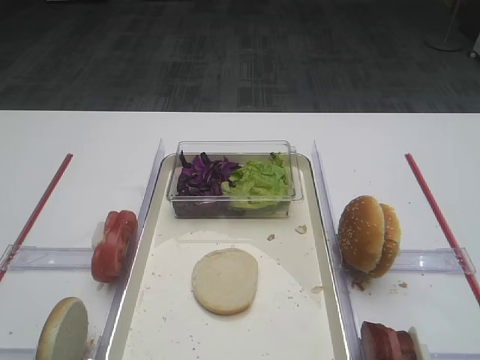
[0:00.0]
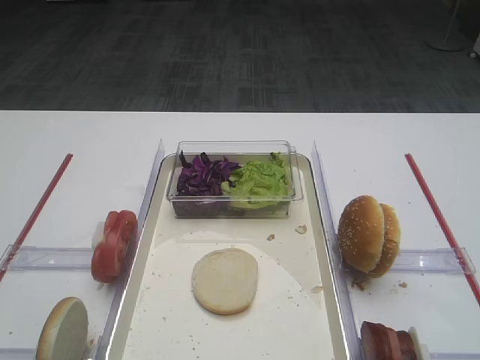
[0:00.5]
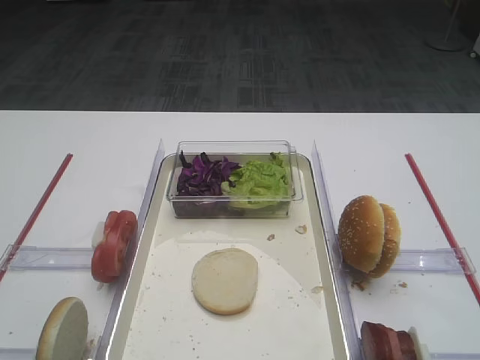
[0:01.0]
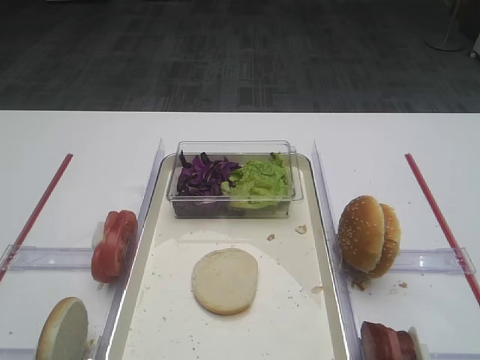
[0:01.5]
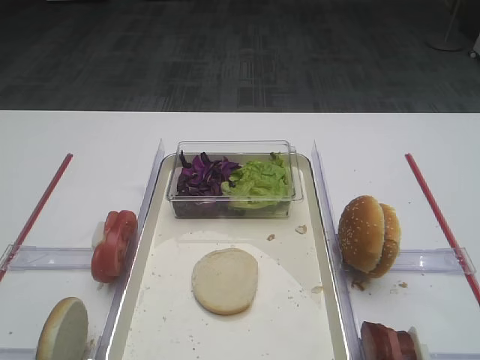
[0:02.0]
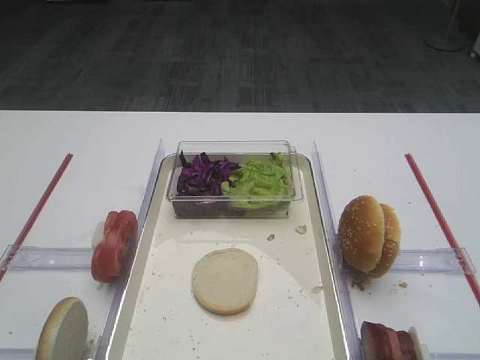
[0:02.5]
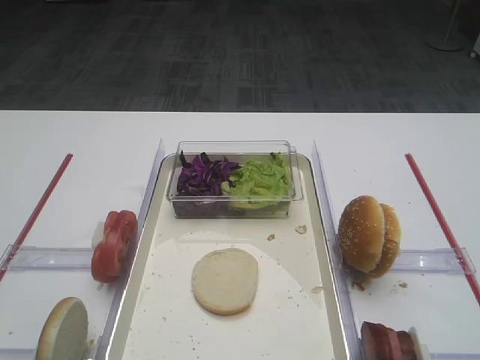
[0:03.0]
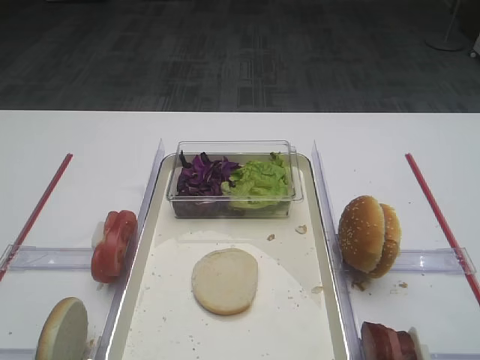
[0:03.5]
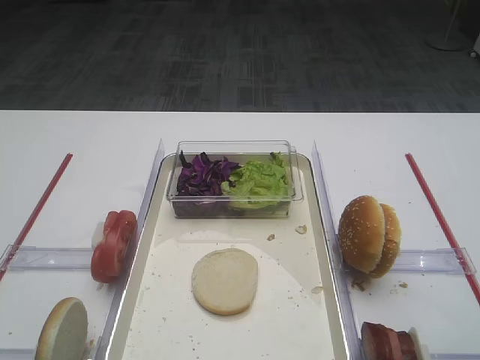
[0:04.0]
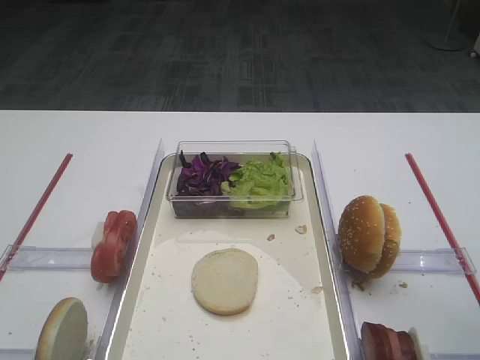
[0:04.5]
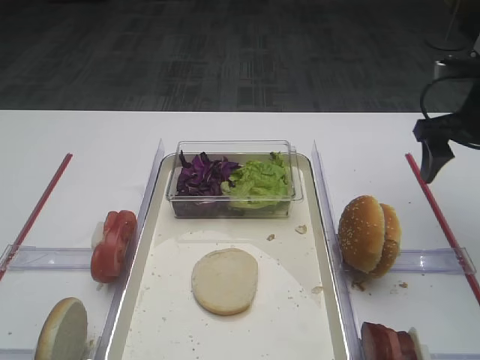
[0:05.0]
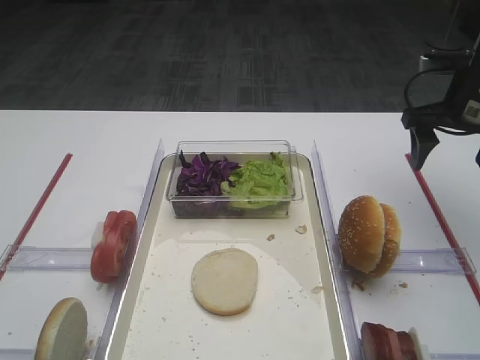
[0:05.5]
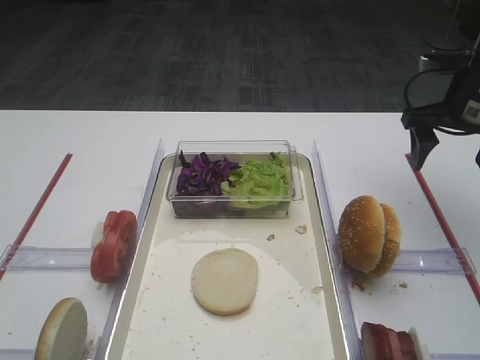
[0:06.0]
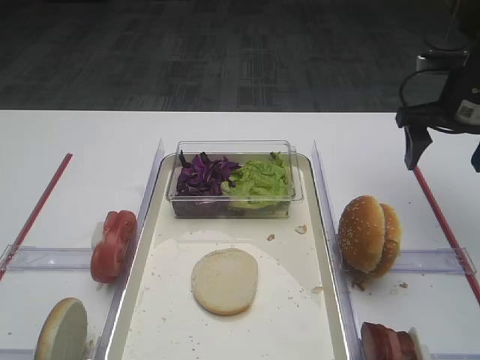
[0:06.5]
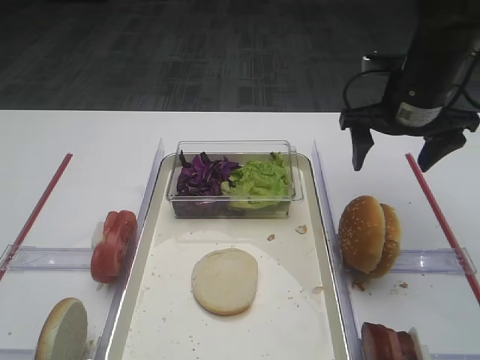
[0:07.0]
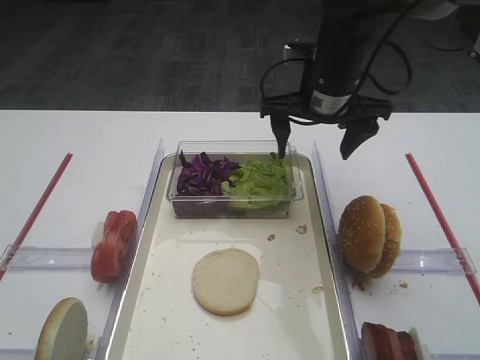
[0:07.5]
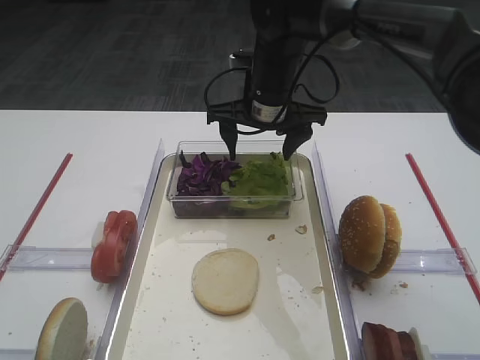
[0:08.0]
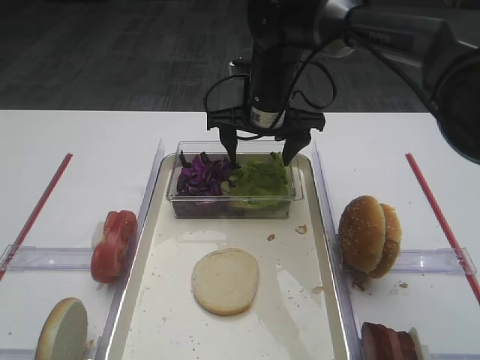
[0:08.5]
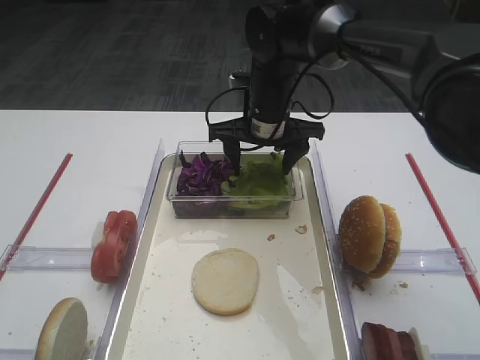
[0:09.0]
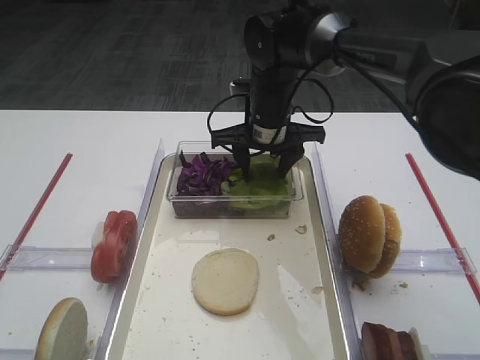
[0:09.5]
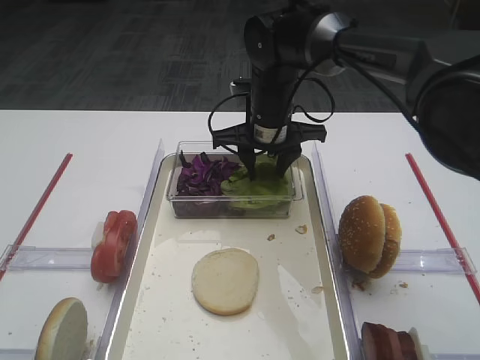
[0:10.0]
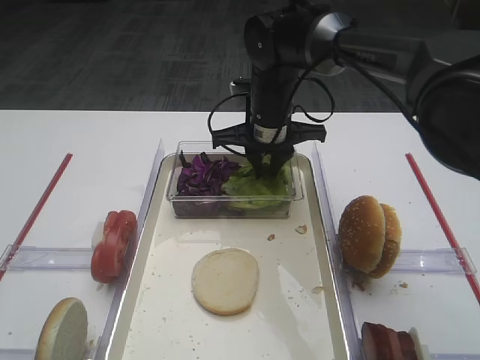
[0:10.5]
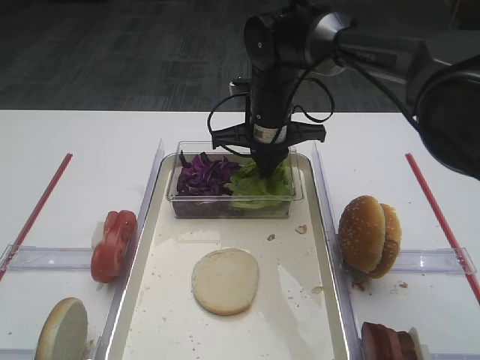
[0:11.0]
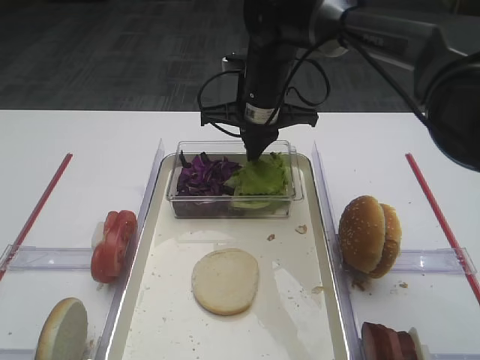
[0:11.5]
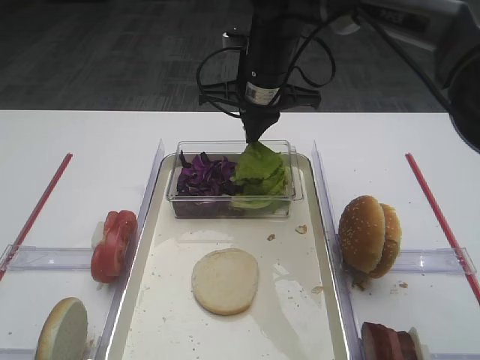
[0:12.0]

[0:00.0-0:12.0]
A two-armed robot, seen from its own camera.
0:04.0 to 0:06.0: The right gripper moves forward, some 30 cm.
0:06.0 to 0:08.0: The right gripper shifts about 25 cm to the left.
0:08.0 to 0:10.0: The right gripper closes.
0:10.0 to 0:12.0: The right gripper shifts roughly 5 cm upward, and closes its fingers.

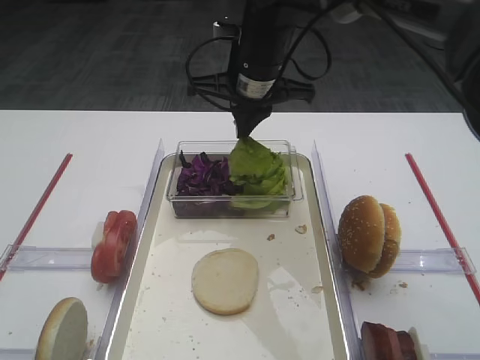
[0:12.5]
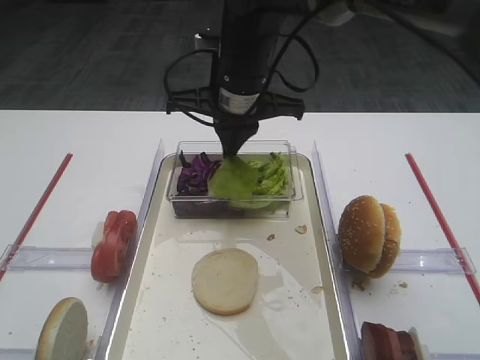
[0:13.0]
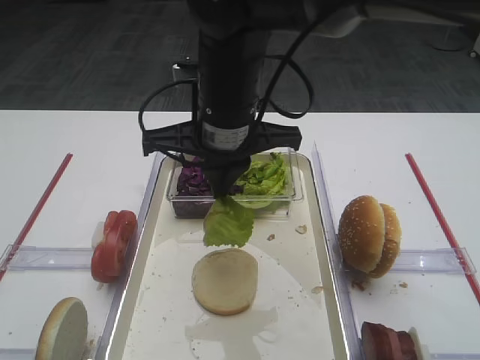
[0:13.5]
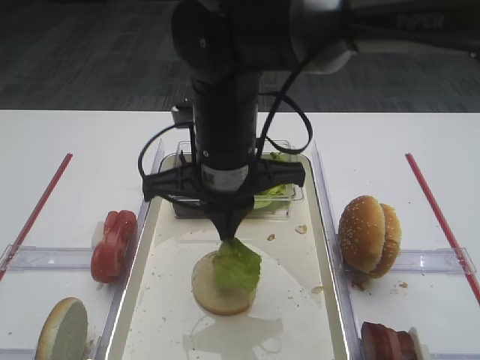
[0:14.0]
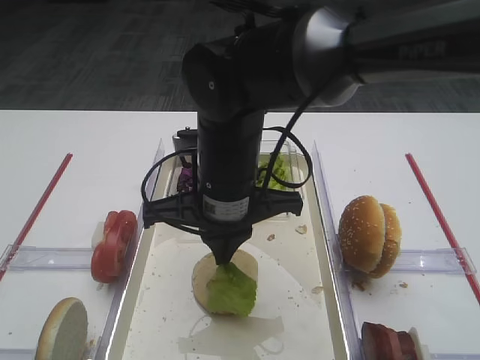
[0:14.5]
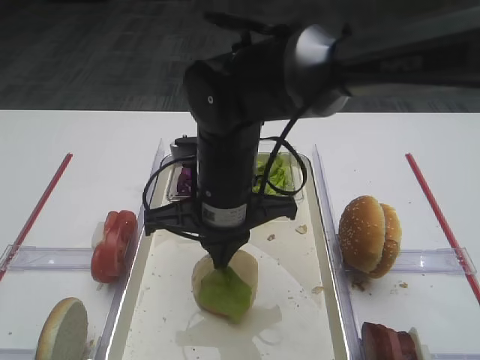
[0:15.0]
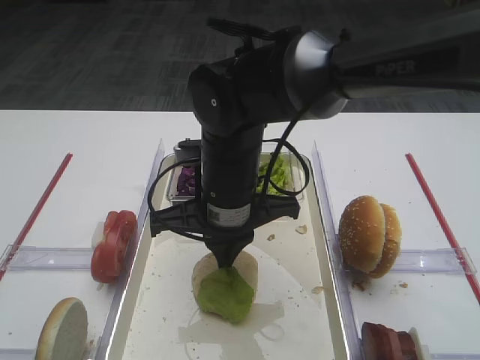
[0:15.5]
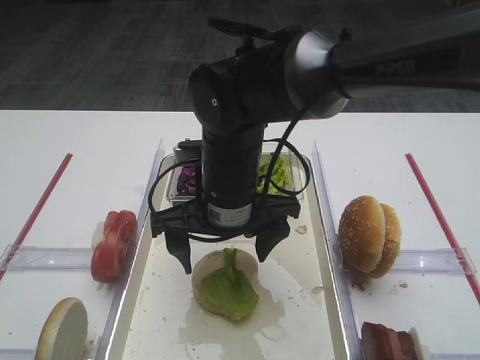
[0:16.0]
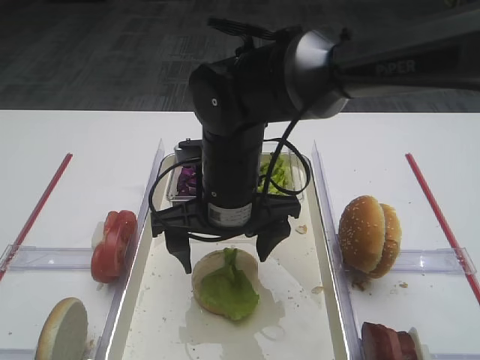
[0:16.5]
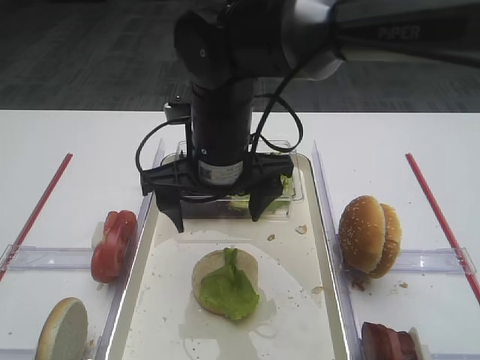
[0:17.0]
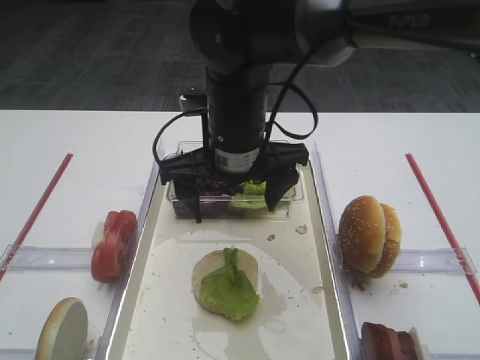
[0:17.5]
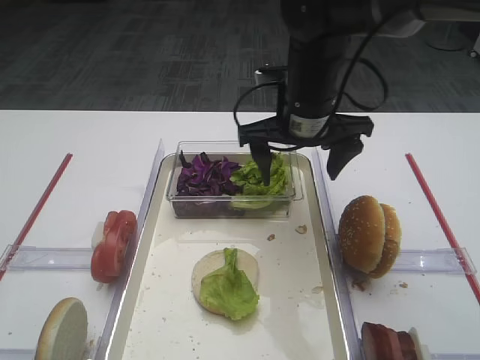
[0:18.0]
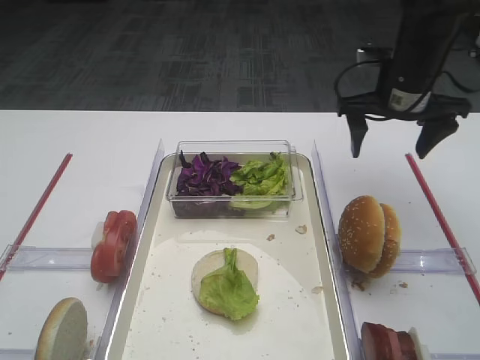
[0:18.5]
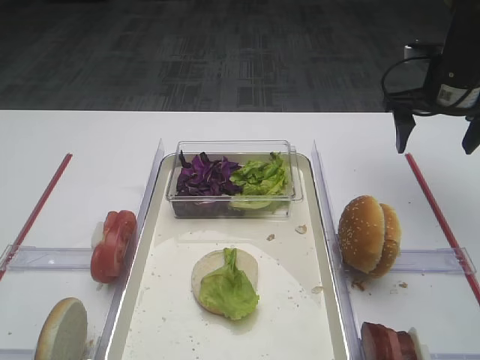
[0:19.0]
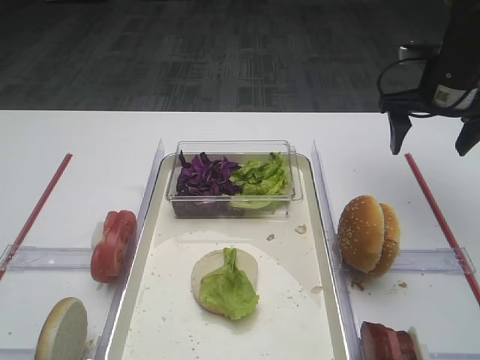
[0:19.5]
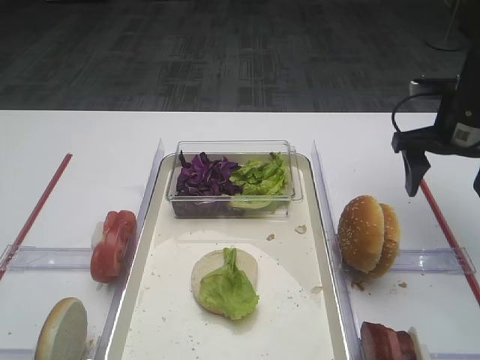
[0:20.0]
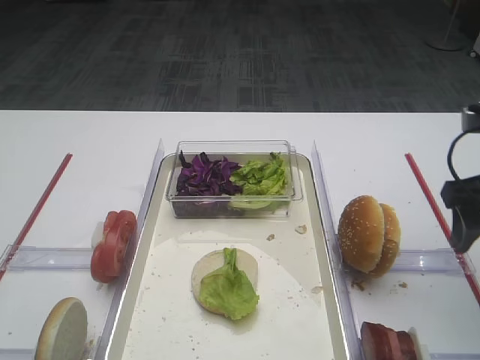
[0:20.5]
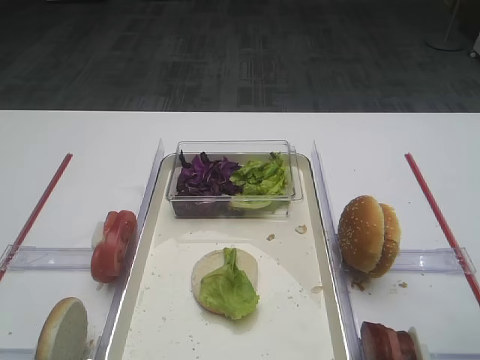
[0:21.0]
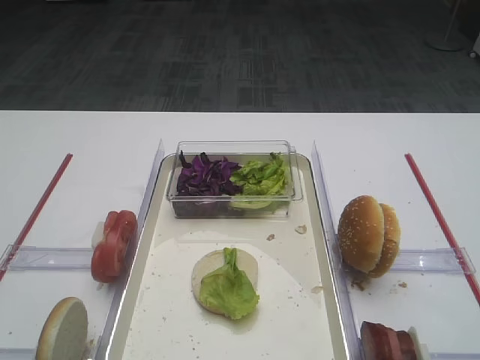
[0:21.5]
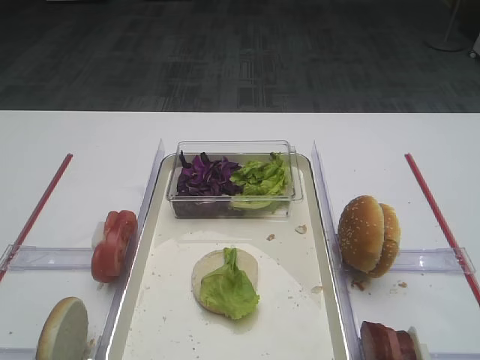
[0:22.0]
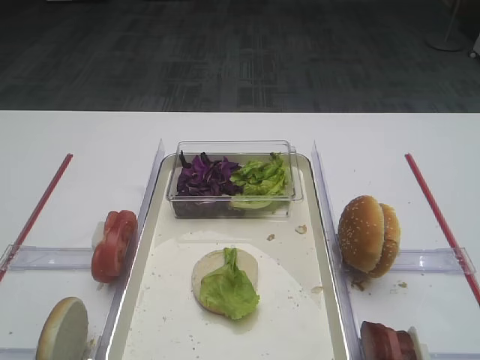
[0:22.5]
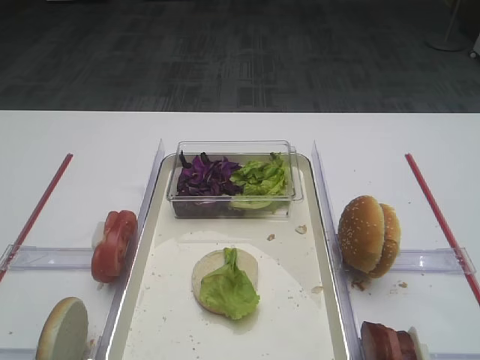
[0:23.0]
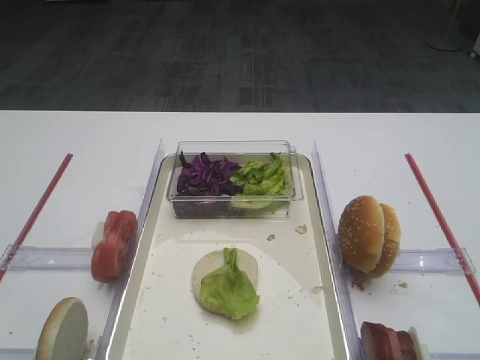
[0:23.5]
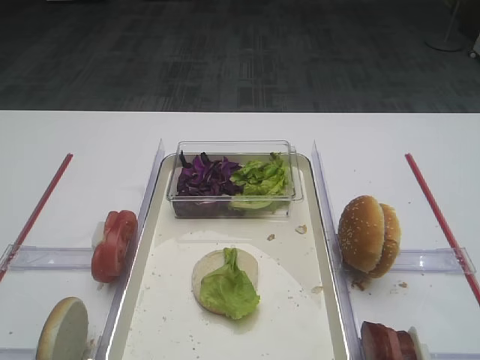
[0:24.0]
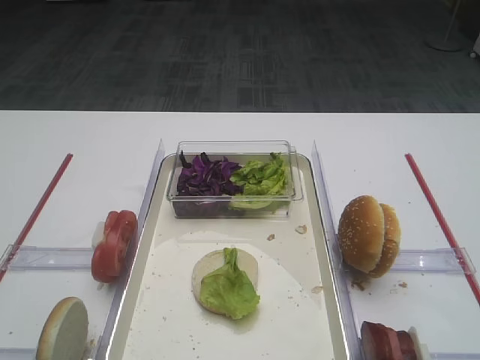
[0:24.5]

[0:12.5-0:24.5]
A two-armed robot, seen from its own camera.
Step, 0:12.5 to 0:17.0: Place the lettuce leaf on the bread slice with the right gripper.
0:12.5 to 0:14.5: The right gripper travels backward by approximately 15 cm.
0:14.5 to 0:16.5: The right gripper opens up.
0:16.5 to 0:18.5: The right gripper heads to the right and forward, covering some 25 cm.
0:18.5 to 0:20.5: The right gripper travels backward and to the right by approximately 15 cm.
0:20.5 to 0:22.5: The right gripper is displaced backward by some 25 cm.
0:22.5 to 0:24.5: The two grippers keep their place.

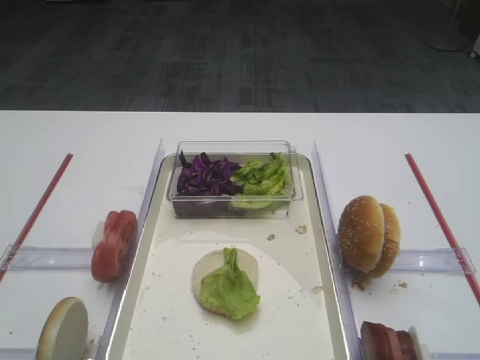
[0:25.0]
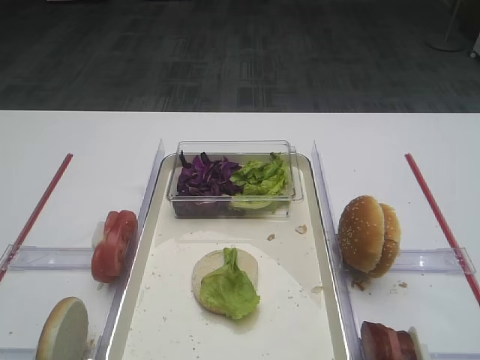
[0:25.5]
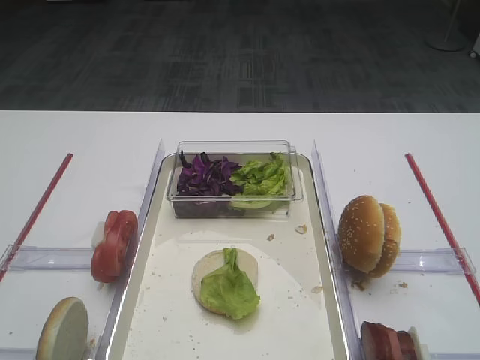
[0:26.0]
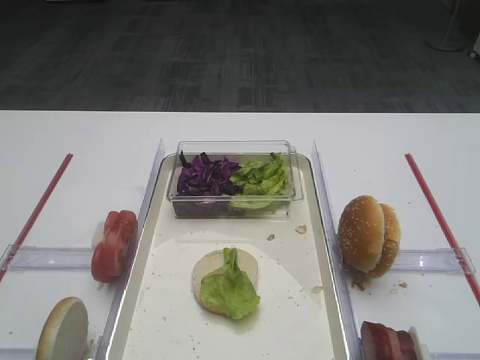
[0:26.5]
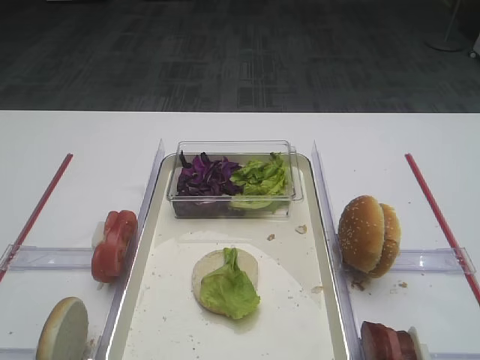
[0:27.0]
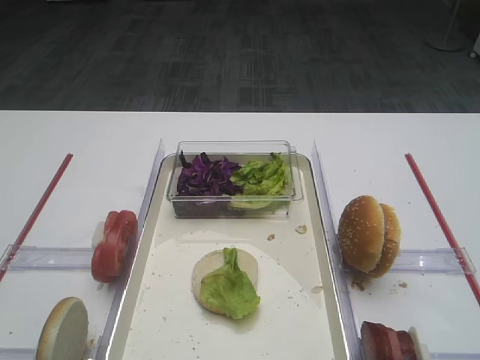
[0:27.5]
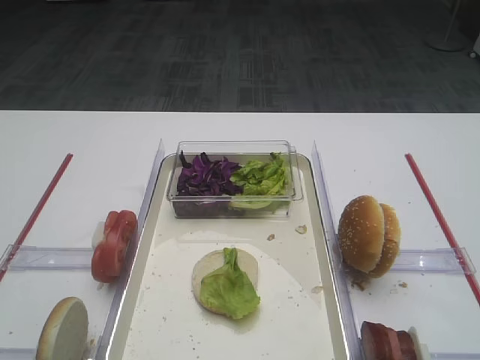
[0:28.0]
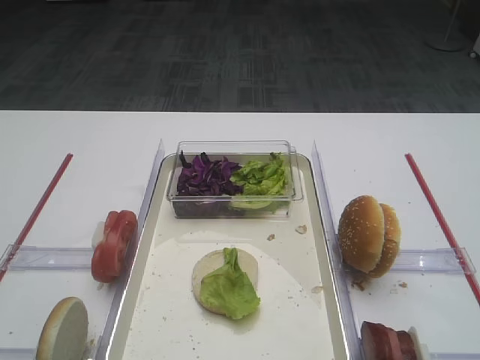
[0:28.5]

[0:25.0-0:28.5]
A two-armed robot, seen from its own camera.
0:25.0 to 0:28.5: Both grippers stay put.
